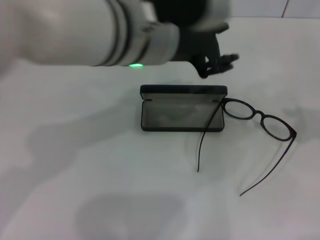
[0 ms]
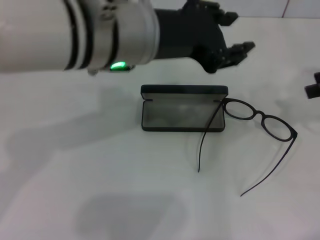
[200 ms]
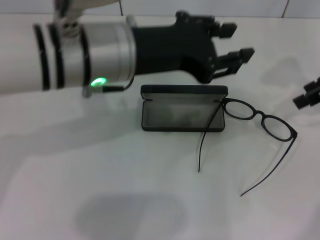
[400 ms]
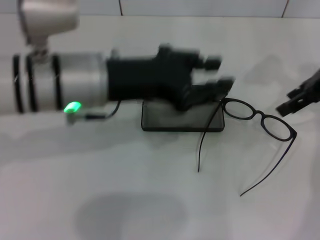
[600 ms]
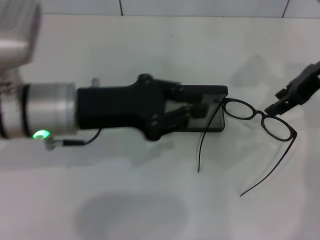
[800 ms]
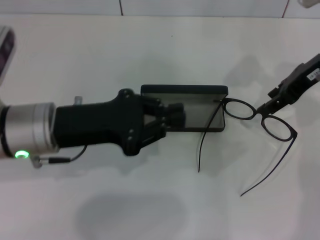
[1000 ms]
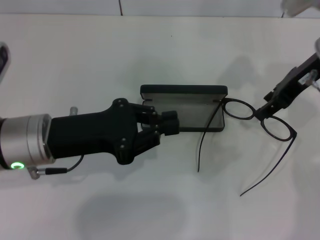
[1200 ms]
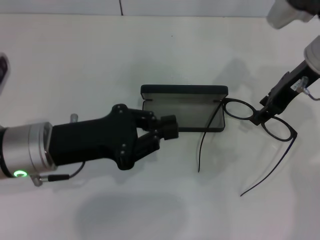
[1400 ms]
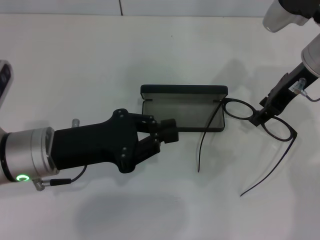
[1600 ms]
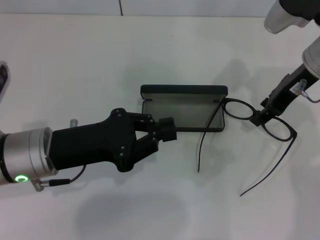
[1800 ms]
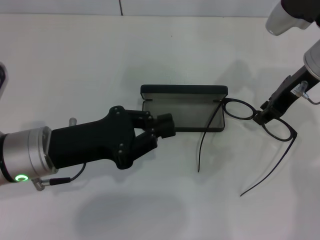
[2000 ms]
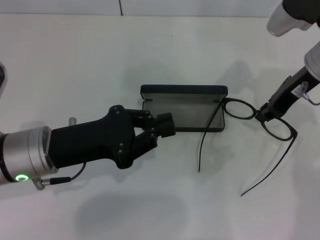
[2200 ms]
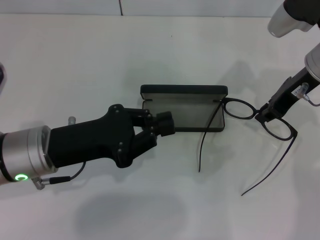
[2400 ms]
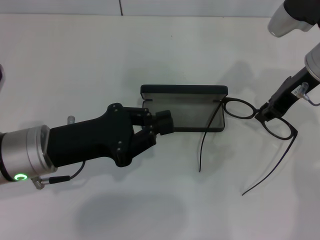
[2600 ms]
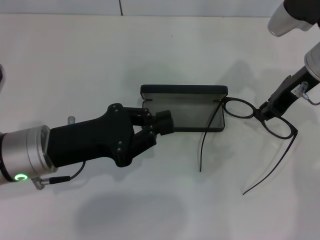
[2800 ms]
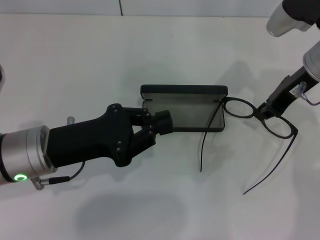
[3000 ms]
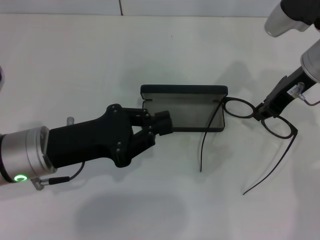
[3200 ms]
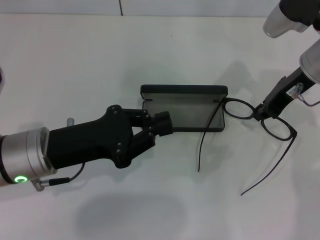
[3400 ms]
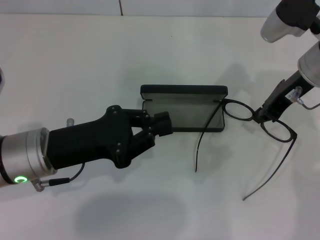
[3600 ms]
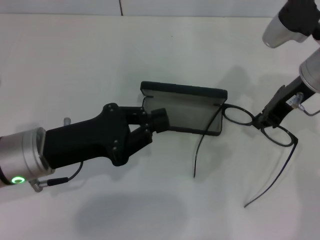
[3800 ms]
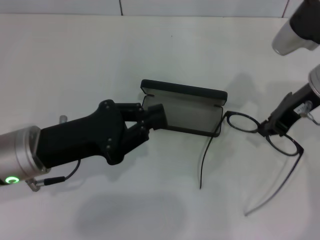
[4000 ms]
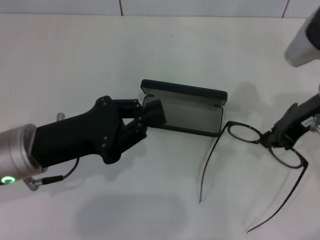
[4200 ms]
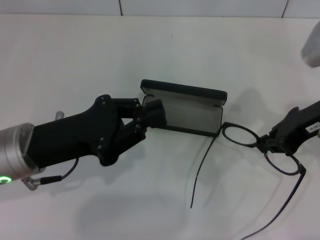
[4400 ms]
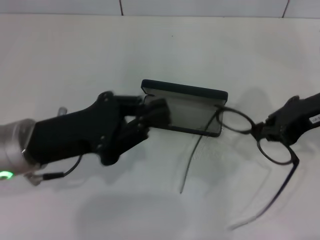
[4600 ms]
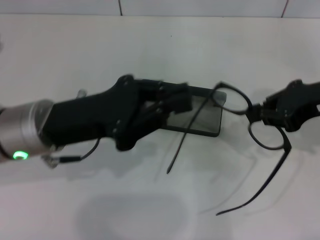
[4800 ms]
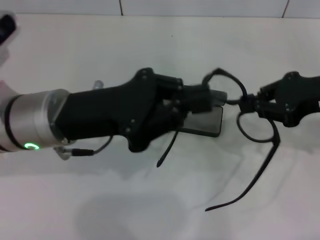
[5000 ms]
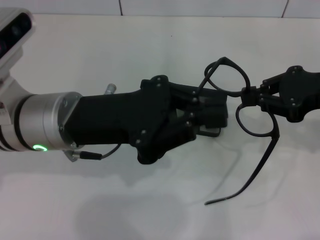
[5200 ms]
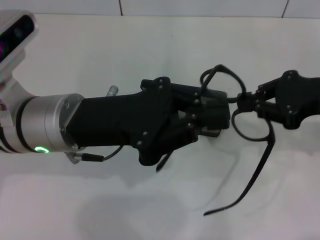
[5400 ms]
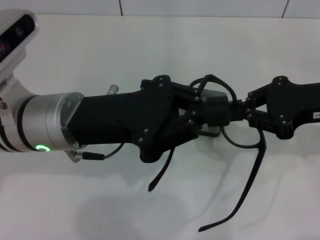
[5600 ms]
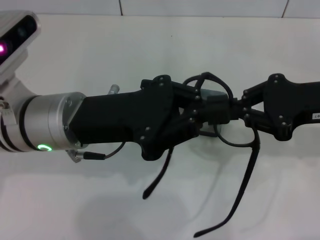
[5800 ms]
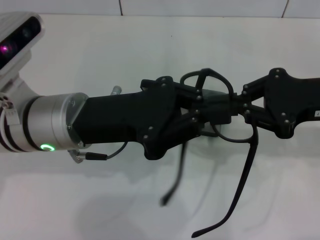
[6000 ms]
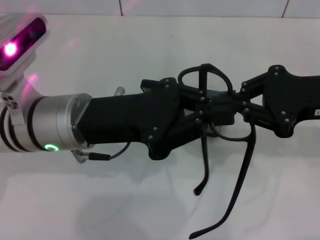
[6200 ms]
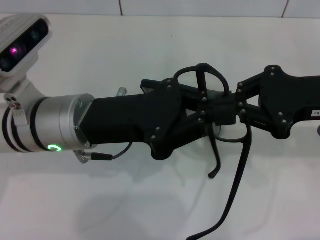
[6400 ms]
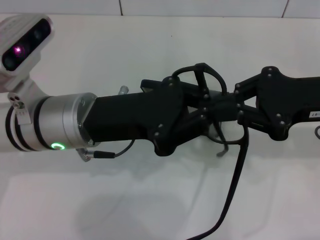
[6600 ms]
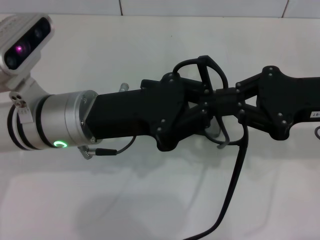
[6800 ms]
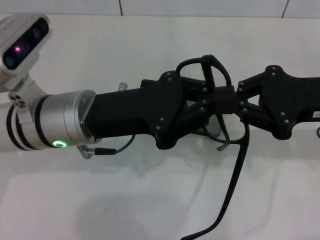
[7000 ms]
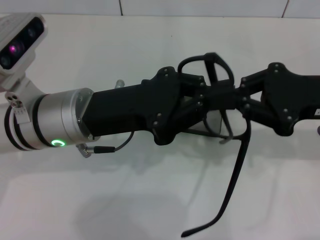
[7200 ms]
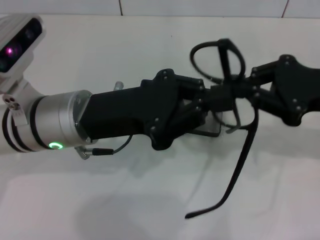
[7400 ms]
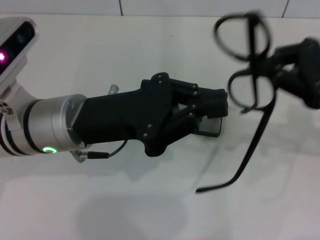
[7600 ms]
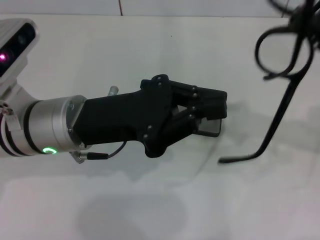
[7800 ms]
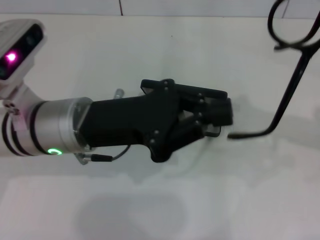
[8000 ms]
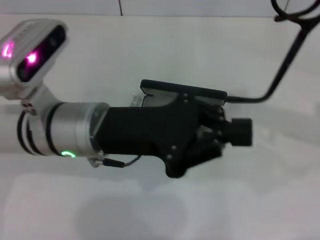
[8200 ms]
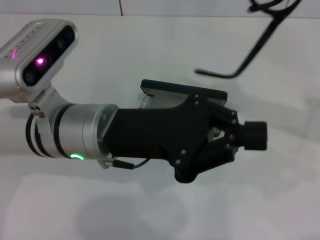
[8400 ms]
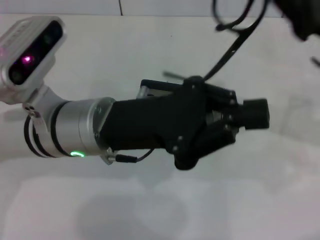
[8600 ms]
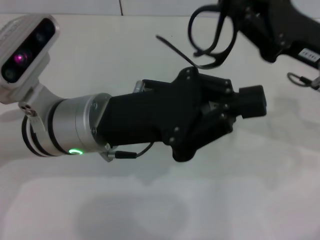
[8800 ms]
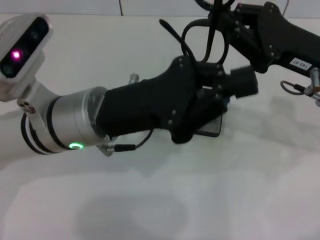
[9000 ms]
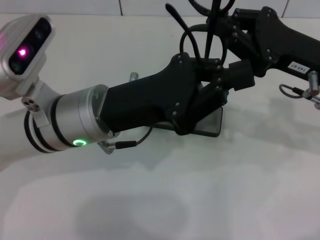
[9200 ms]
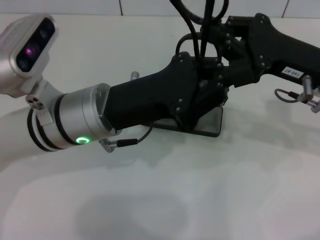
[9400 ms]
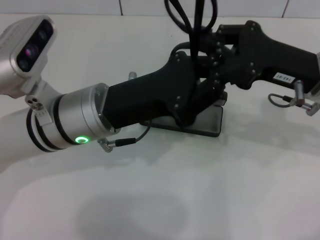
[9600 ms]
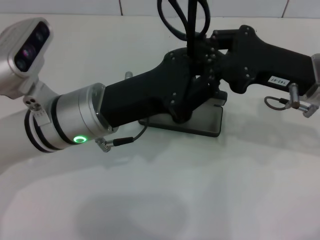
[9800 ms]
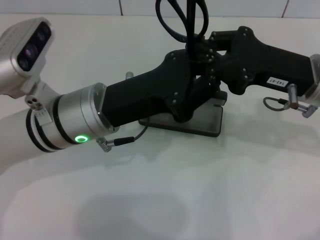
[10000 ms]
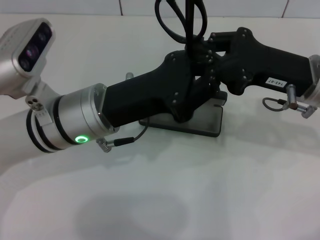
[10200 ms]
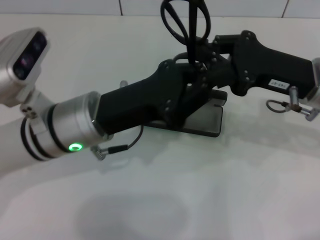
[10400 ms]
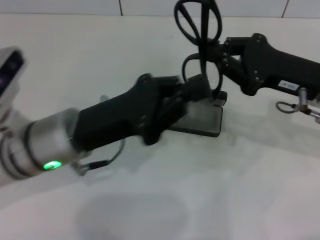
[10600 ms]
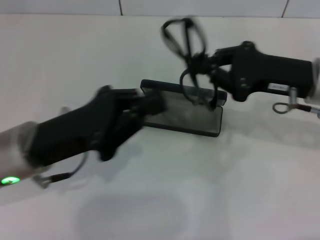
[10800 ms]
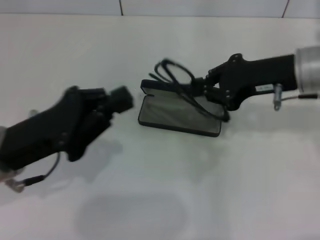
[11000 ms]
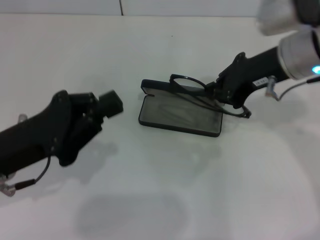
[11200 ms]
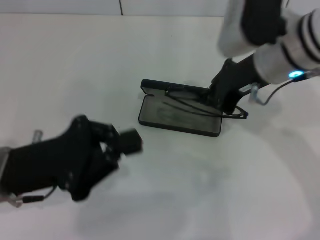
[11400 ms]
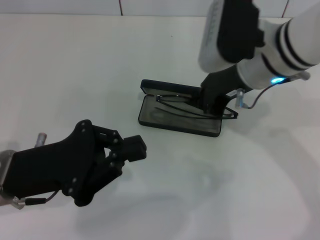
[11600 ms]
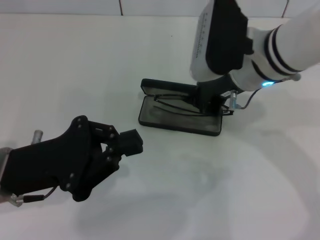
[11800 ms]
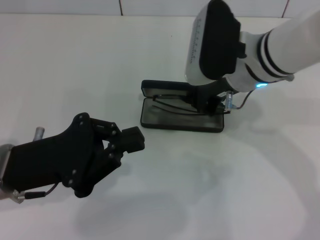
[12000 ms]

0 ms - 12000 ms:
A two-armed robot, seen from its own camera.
Step, 0 ms - 3600 ms: Grab the eyeglass frame with your right hand.
Step, 3800 ms - 10200 ms: Fold the frame with your left hand.
0 ms - 1600 ms: The left gripper travels to the left and downward by about 20 cm, and closes up, while the right gripper moves to the left and forward, roughly 20 cm.
1600 ms - 3000 ms: The right gripper closes its fingers.
3000 ms - 4400 ms: The right gripper is displaced backward by some 10 cm.
4400 ms - 6000 ms: The left gripper goes some 5 cm to the right.
6000 ms - 7600 ms: The grippers make only small movements.
7600 ms - 9000 ms: The right gripper heads to the left, covering about 5 cm.
10400 ms - 12000 ms: Both grippers travel together to the left, some 10 cm.

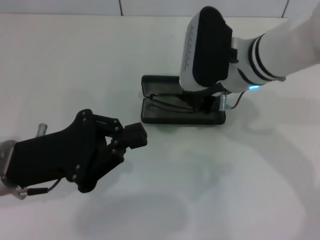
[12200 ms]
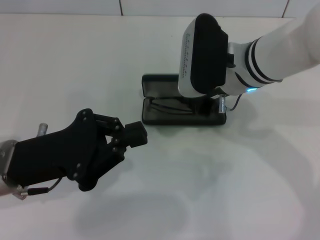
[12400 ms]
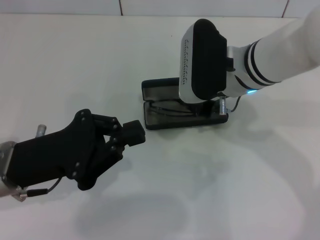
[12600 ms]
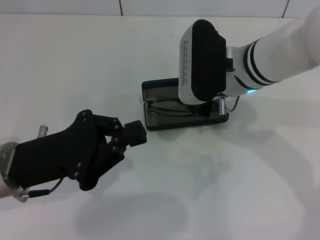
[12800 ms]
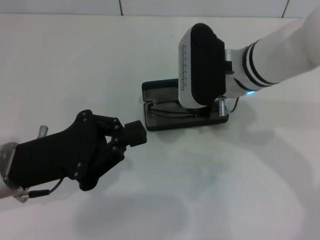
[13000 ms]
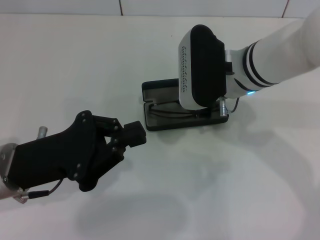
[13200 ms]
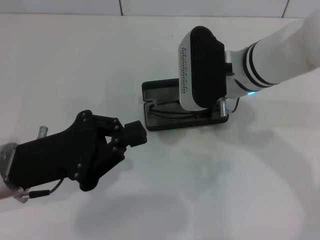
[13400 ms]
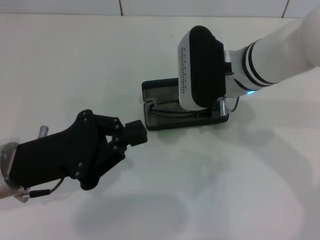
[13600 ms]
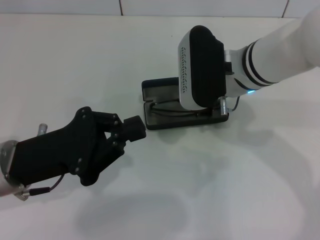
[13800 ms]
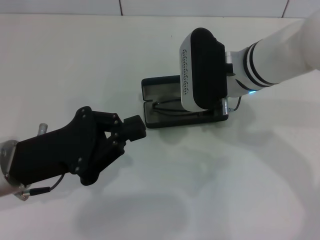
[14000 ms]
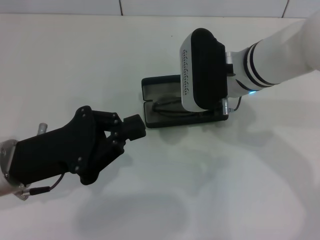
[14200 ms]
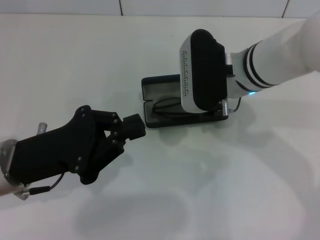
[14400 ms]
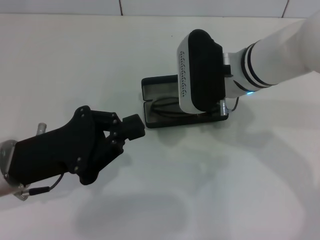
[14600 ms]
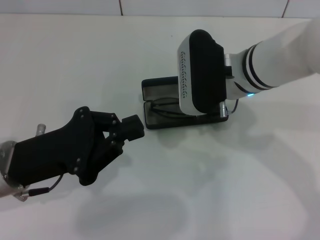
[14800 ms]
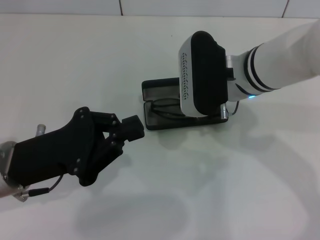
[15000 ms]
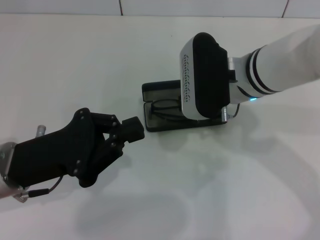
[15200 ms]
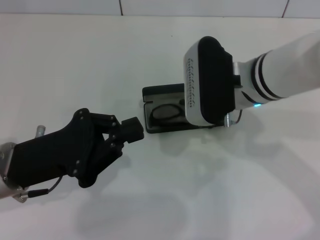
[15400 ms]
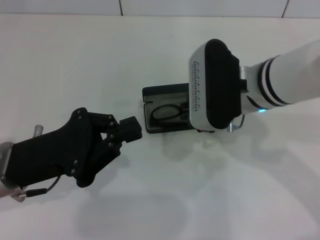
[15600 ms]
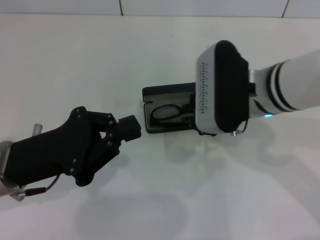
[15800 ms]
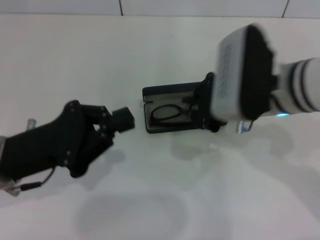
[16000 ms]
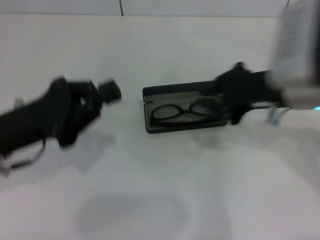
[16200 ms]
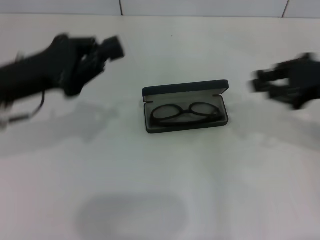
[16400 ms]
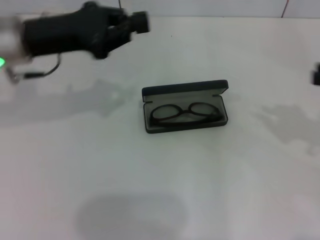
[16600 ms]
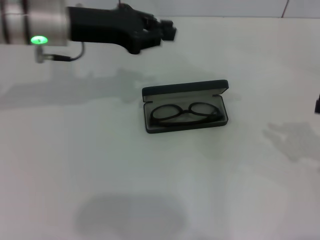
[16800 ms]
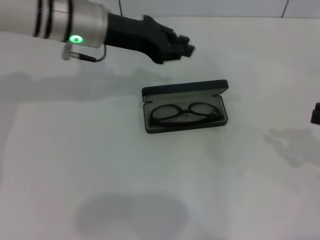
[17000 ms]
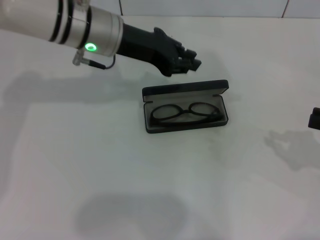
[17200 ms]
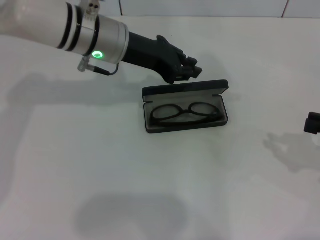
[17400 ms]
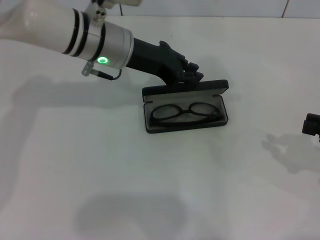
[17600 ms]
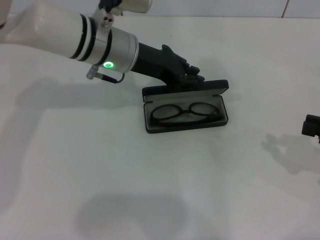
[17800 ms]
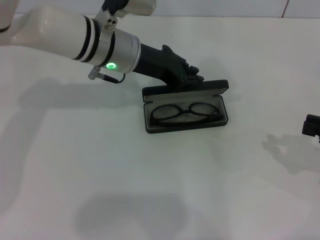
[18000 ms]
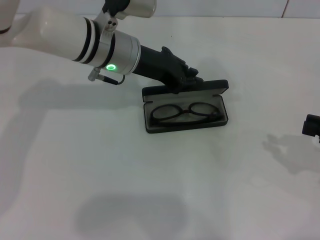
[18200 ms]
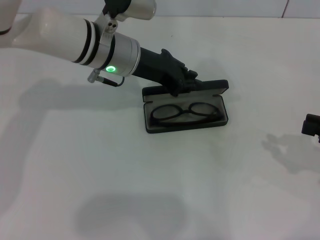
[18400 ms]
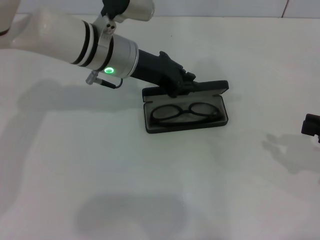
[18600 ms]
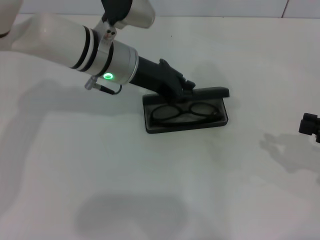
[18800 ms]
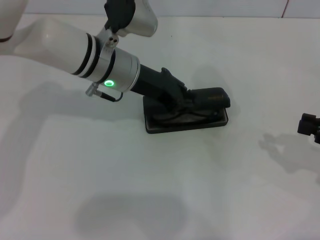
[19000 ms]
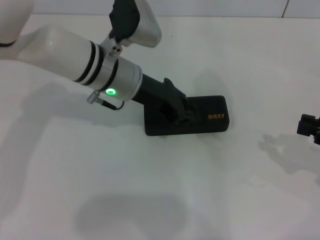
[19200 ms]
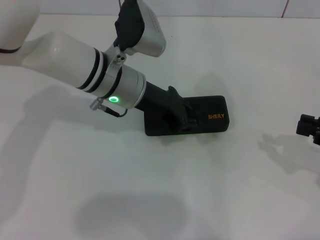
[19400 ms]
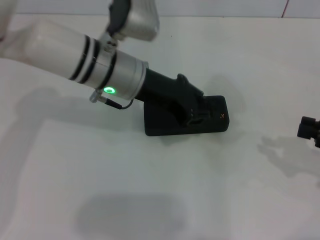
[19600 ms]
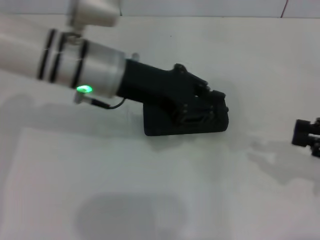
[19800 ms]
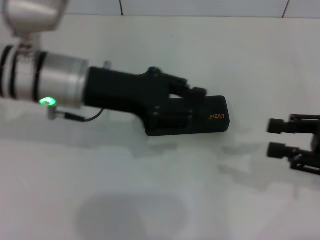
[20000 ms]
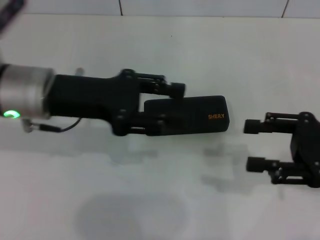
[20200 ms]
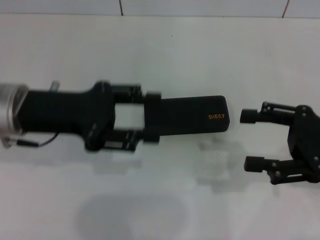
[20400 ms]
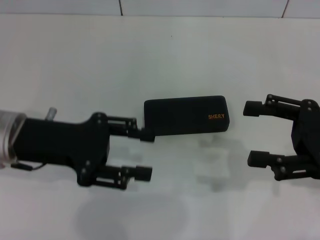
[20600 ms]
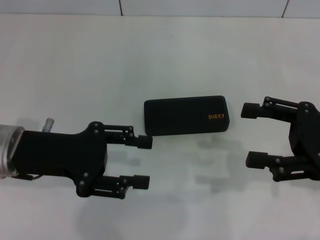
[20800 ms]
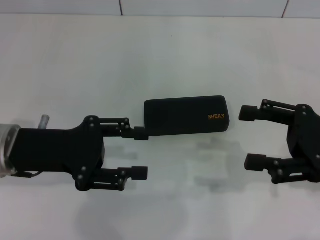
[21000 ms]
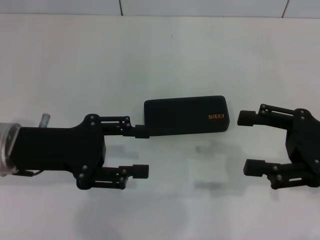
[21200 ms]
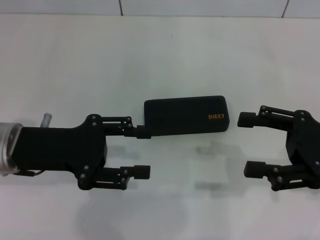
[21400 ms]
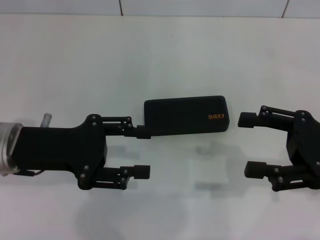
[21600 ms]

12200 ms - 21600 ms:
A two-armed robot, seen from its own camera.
Step, 12200 ms - 15400 ms: Put the glasses into the case with your right hand.
Step, 15800 ms - 19400 ms: Close the glasses case with your left hand.
12200 ms - 15400 ms: The grippers make only small movements.
15400 ms - 17000 ms: The right gripper travels to the right by approximately 25 cm. Meanwhile the left gripper heads forward, to the right and upward, covering approximately 20 cm.
17000 ms - 18400 ms: The left gripper ends up some 5 cm from where it was.
18400 ms - 20000 ms: The left gripper travels backward and to the left by approximately 10 cm.
20000 ms - 21600 ms: The right gripper opens its fingers, while the left gripper travels to the left, backward and downward by some 10 cm, and opens up.

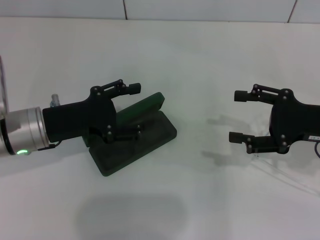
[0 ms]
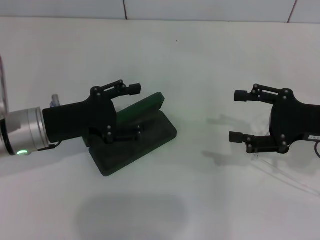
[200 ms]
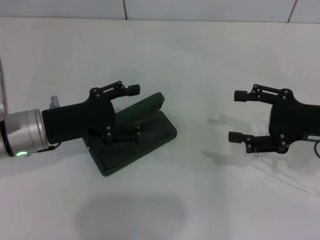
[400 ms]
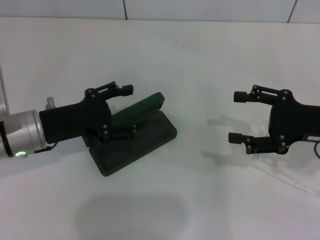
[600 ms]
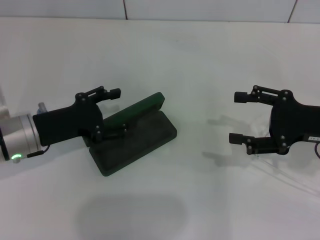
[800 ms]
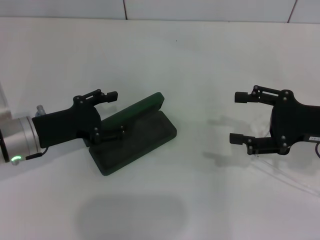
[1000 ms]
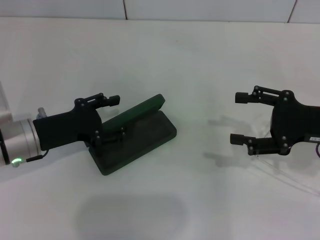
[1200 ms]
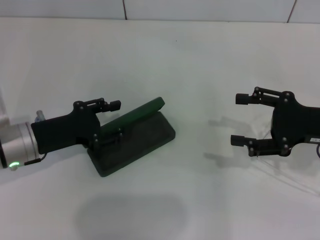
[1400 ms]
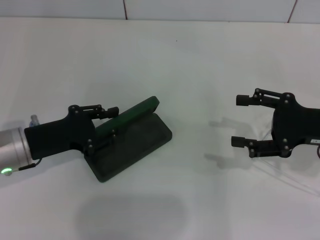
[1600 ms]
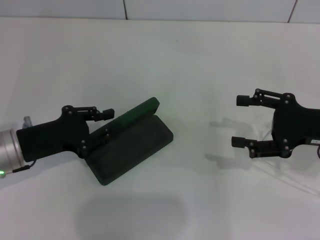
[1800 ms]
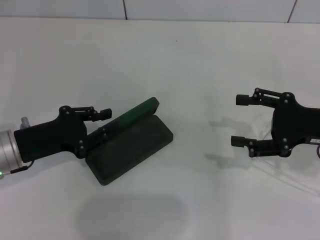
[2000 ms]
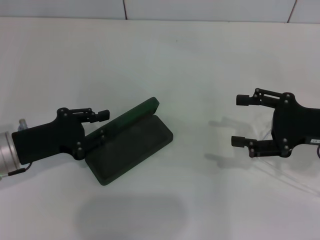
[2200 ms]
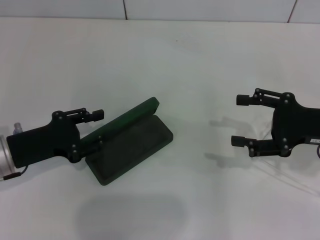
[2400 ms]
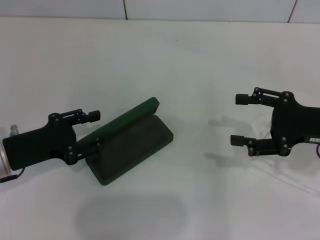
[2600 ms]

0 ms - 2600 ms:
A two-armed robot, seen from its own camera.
0 ms - 1200 ms: The grippers make only small movements.
1200 ms - 2600 ms: The left gripper closes up.
